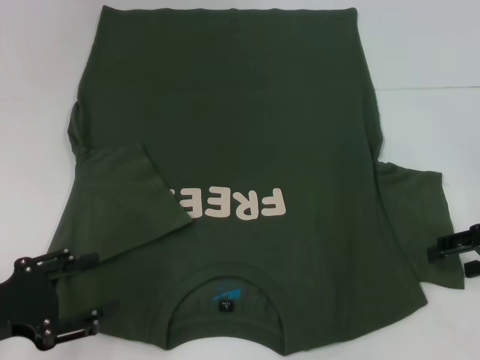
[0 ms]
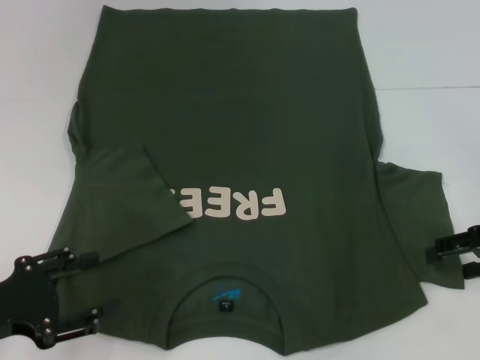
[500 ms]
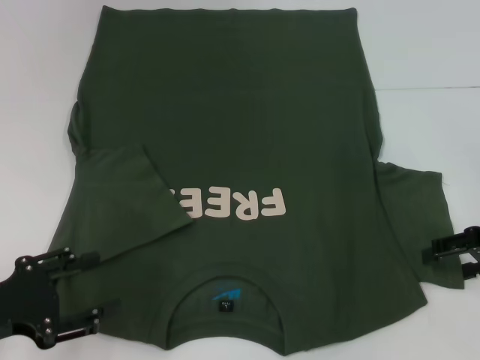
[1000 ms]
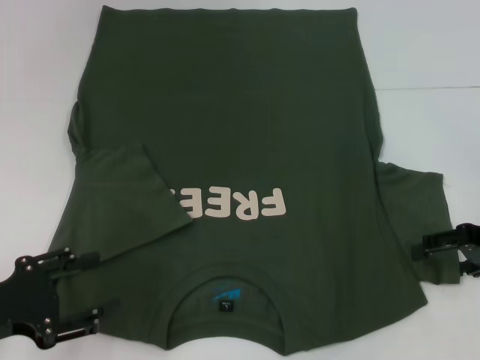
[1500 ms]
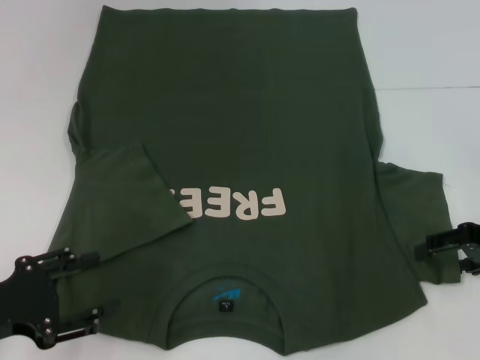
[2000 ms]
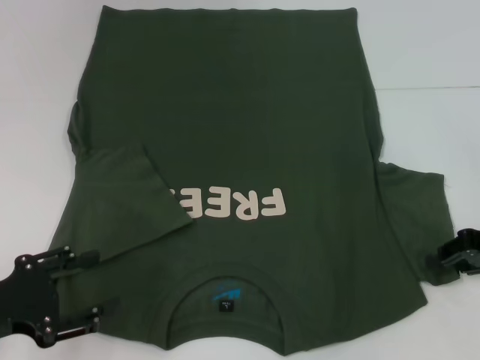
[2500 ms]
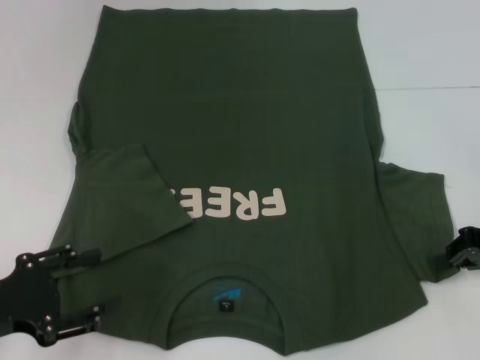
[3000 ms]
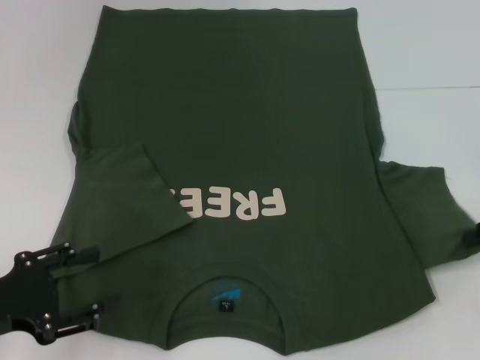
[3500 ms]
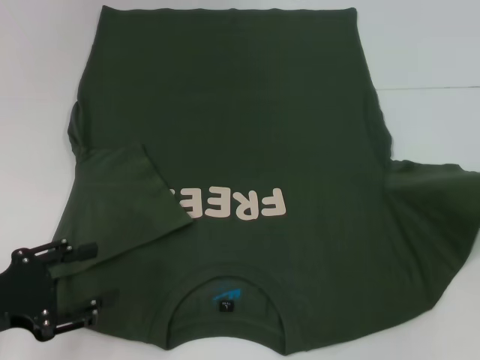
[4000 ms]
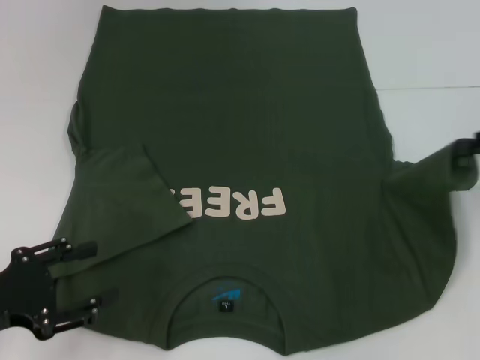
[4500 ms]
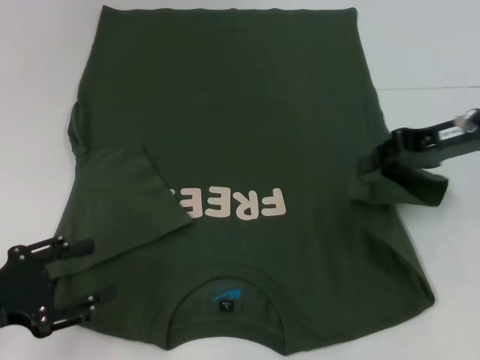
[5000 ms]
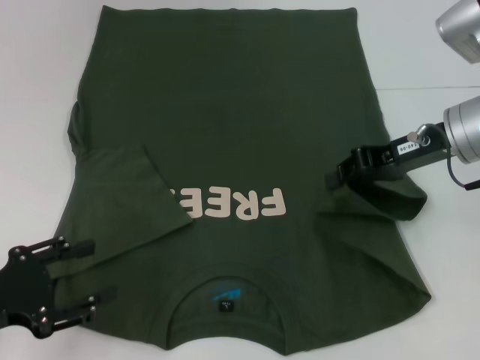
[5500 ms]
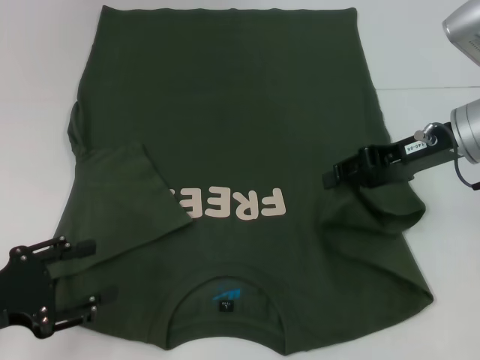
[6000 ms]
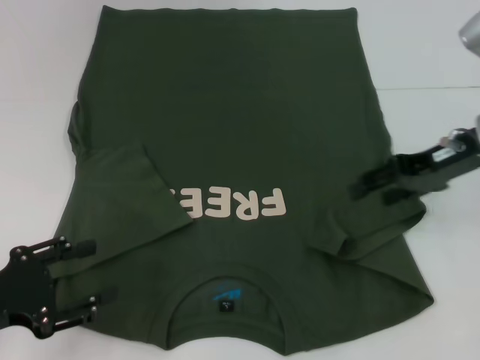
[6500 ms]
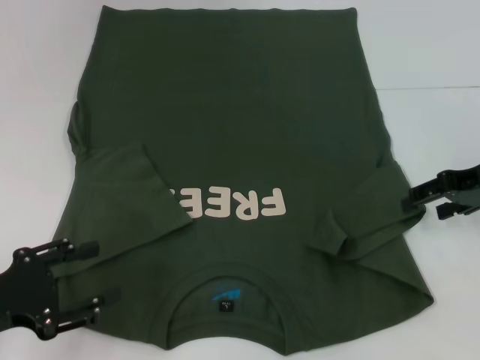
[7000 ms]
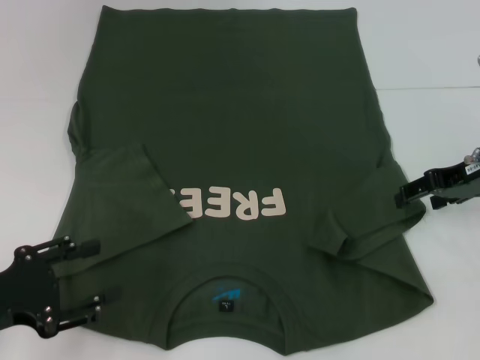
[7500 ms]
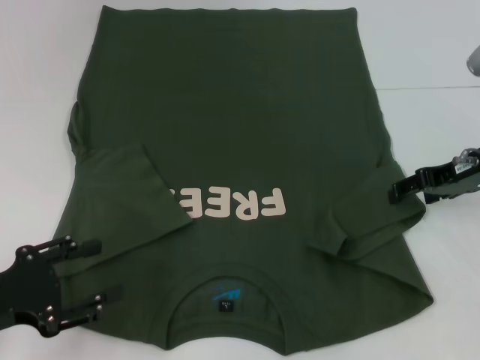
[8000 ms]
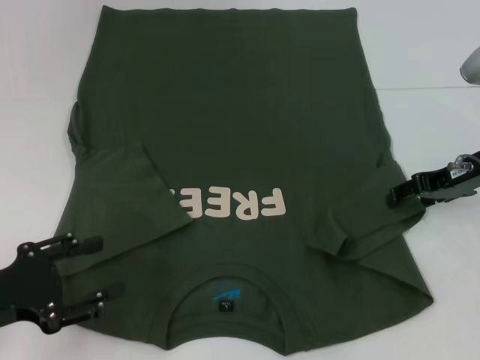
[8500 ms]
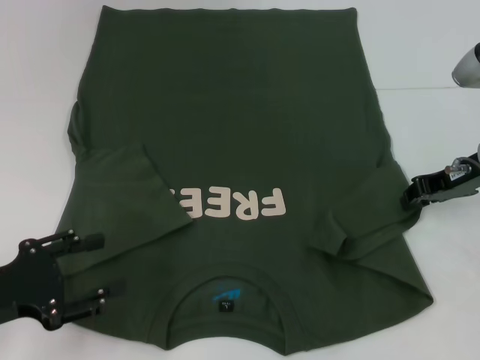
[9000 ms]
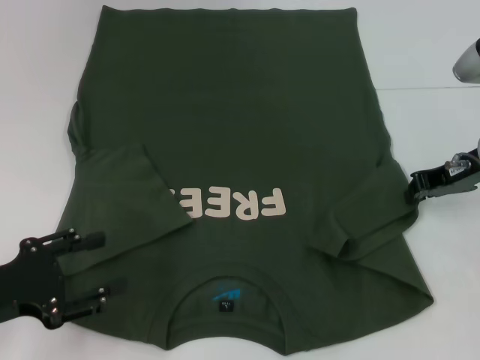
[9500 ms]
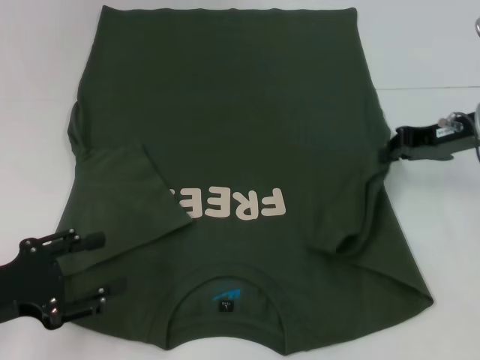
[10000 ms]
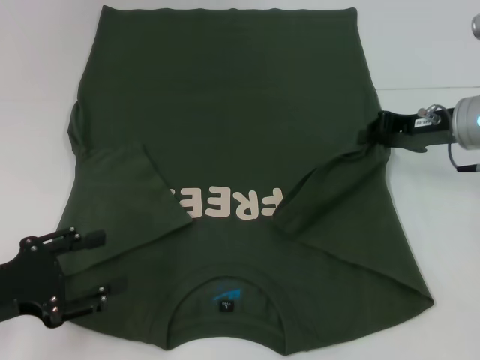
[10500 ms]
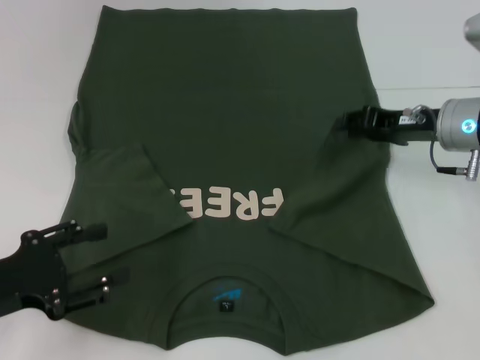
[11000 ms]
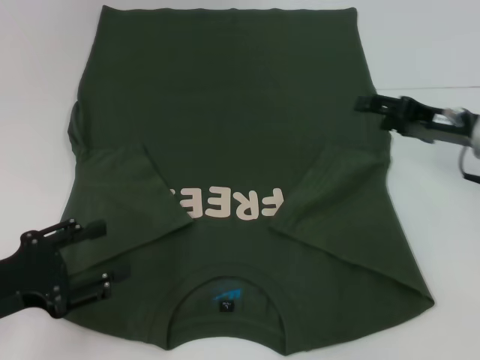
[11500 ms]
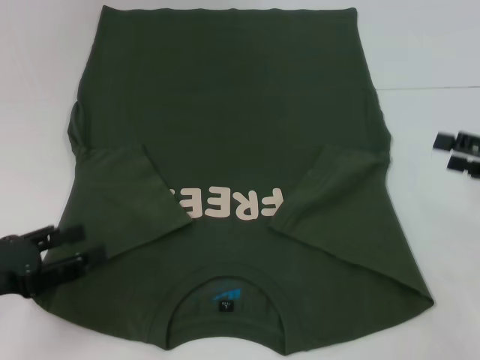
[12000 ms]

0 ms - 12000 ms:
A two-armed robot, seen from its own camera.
Step, 0 ms - 11000 ms: Fold the bottom right sleeve with your right hand.
0 ms - 2000 ms: The two grippers keep their place.
2000 ms - 4000 ms: The right gripper is displaced to the right and upward by roughly 10 cm, and closes.
4000 ms - 6000 ms: The right gripper goes approximately 15 cm to the left and forward.
6000 ms - 8000 ms: The right gripper moves roughly 5 cm, and opens up.
8000 ms - 10000 ms: The right gripper closes its fingers.
10000 ms - 12000 ms: The right gripper travels to the right and backward by roughly 15 cm, and opens up.

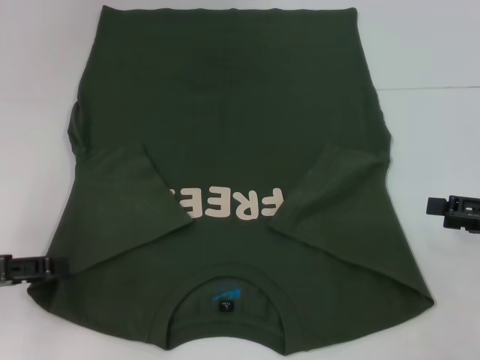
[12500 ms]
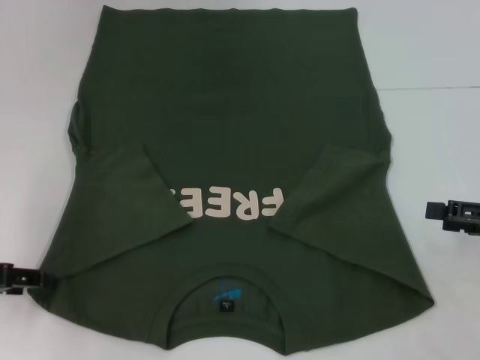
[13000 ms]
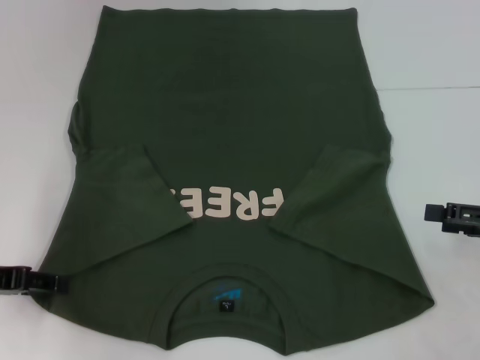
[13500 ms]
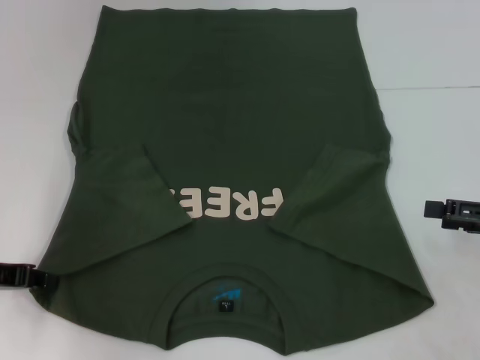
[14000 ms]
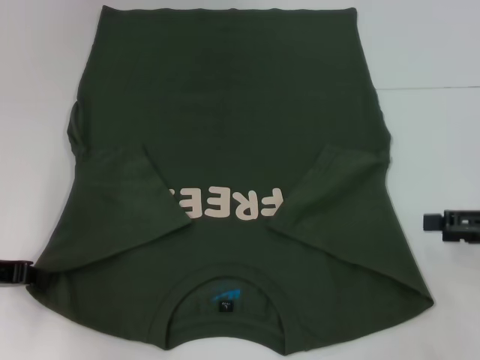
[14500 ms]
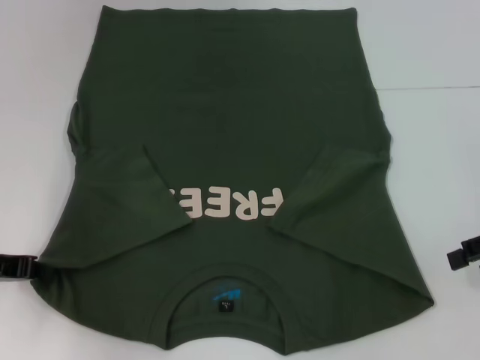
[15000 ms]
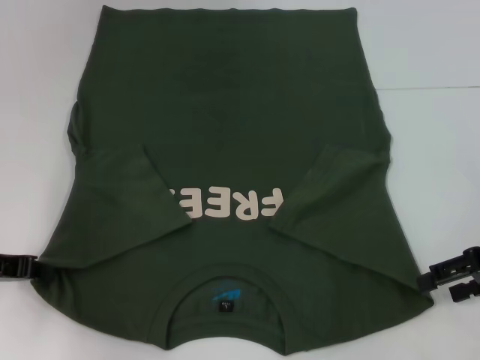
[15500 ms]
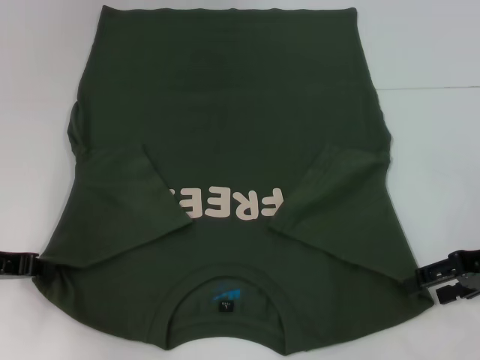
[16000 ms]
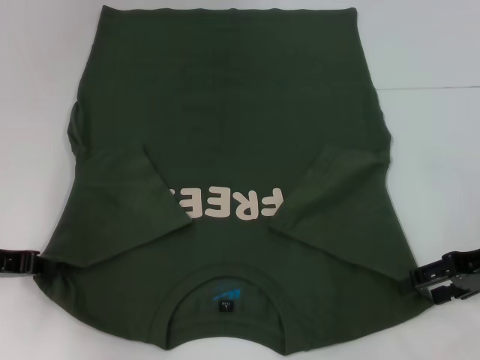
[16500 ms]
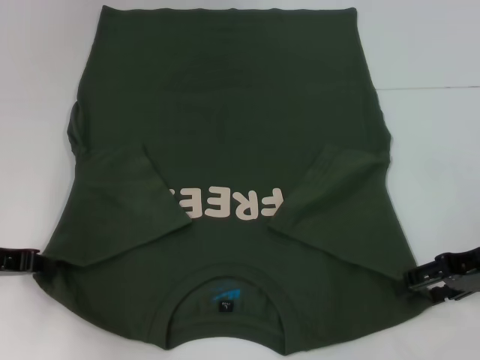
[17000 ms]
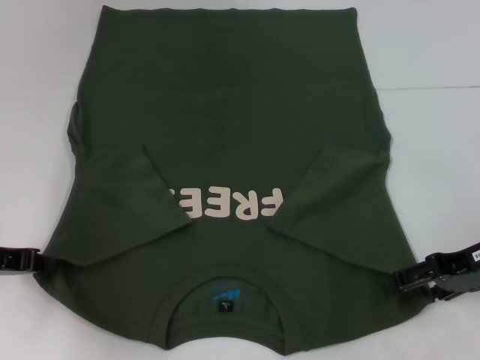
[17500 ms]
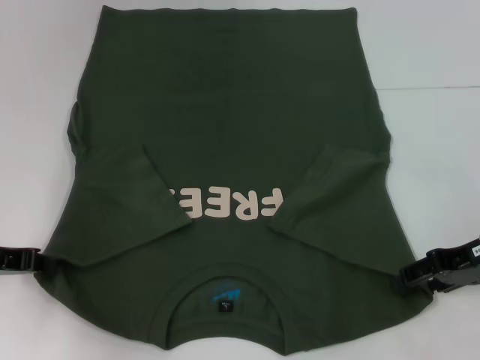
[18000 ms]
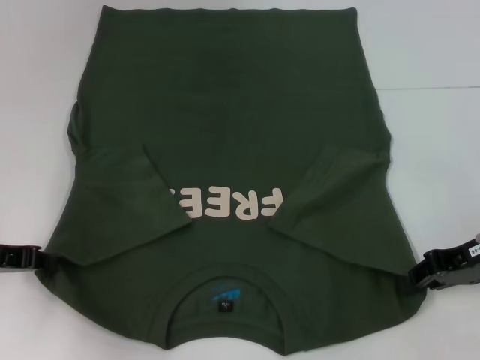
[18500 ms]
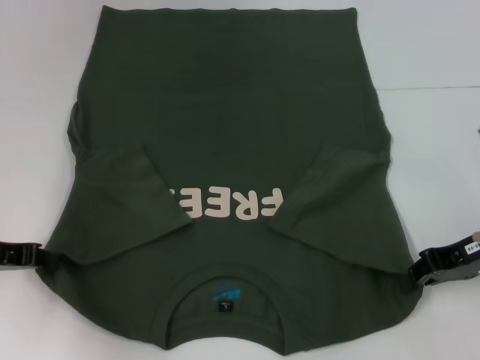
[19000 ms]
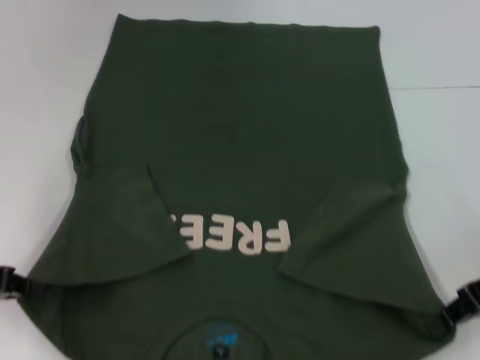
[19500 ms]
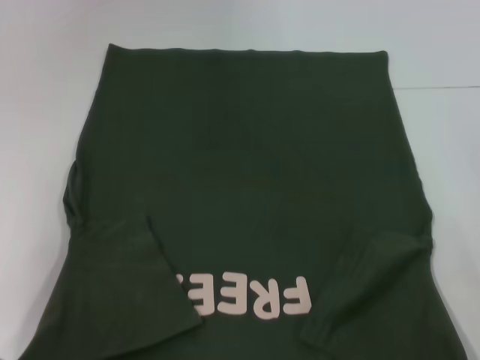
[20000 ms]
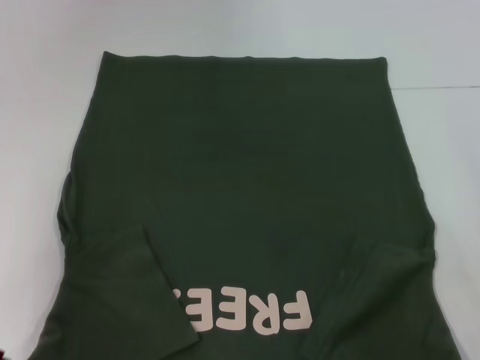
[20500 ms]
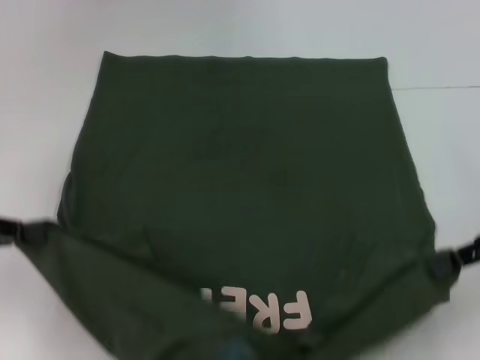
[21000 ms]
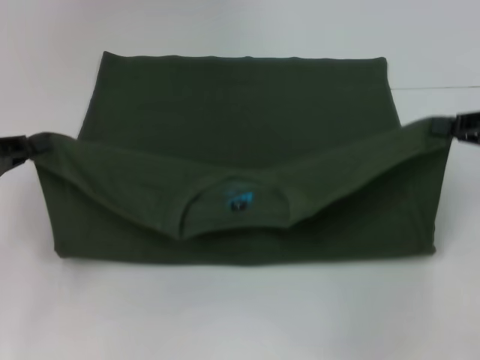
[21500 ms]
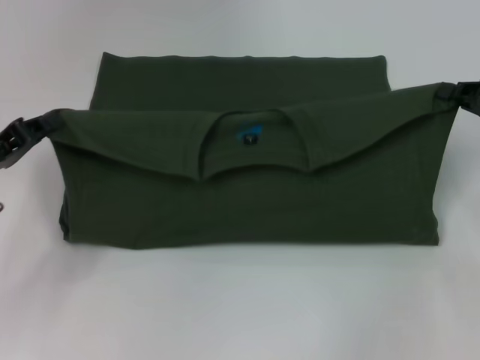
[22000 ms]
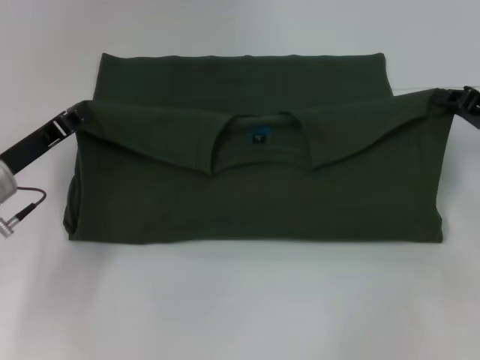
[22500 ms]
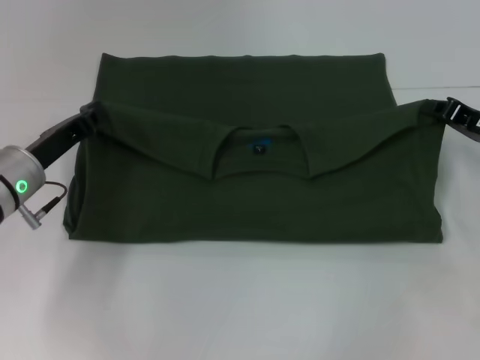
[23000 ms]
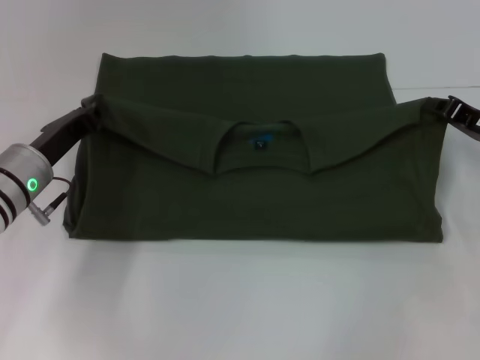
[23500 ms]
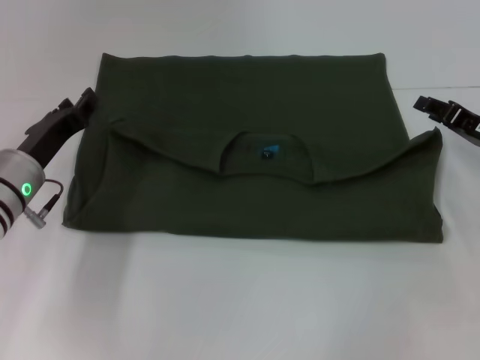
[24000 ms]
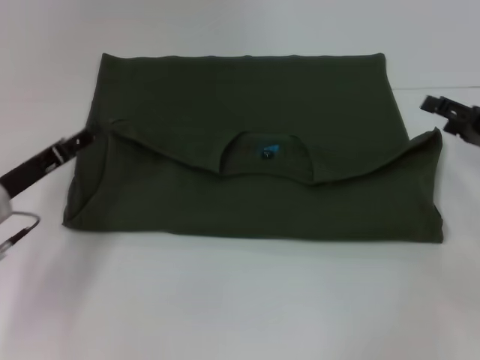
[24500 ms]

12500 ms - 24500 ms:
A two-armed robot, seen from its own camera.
Step, 12500 ms - 14000 ms: Grab the bottom left corner with your left hand.
Step, 14500 ms - 18500 ms: Grab the bottom right corner with your right hand.
Step, 19000 ms - 23500 ms: Fold the clothes with your left hand.
Step, 19000 ms - 23500 ms: Fold the clothes with your right hand.
12500 ms - 14500 ms: The left gripper closes.
14500 ms - 16500 ms: The right gripper shifts by approximately 5 cm.
16500 ms - 18500 ms: The right gripper closes its fingers.
18500 ms - 20500 ms: The left gripper heads backward, covering about 5 cm. The right gripper closes up.
20500 ms - 22500 ms: The left gripper is displaced forward and to the right by approximately 10 cm. The right gripper goes about 10 cm forward.
22500 ms - 24500 ms: The right gripper opens its fingers; the left gripper opens.

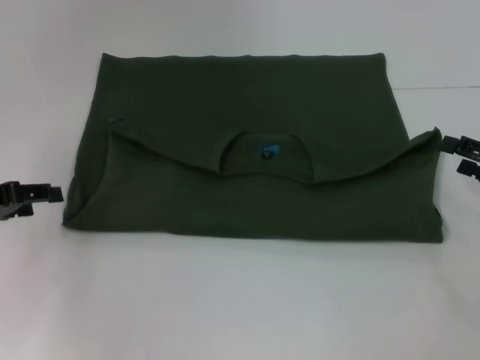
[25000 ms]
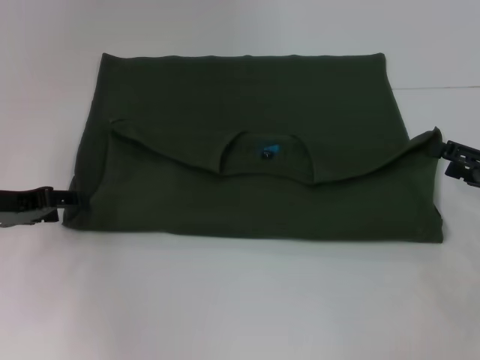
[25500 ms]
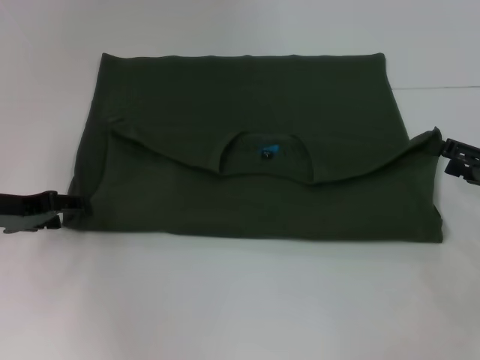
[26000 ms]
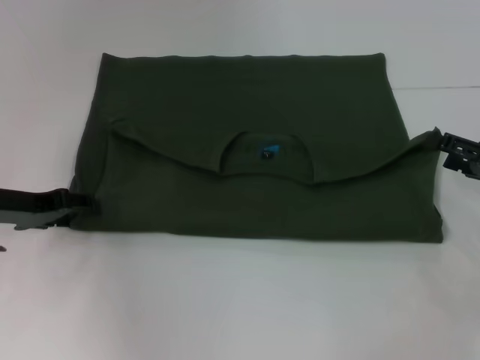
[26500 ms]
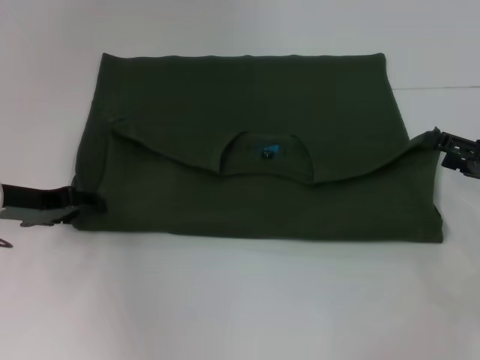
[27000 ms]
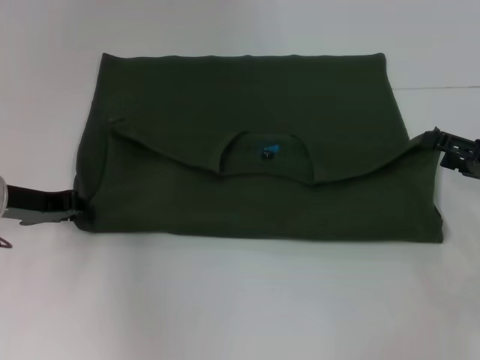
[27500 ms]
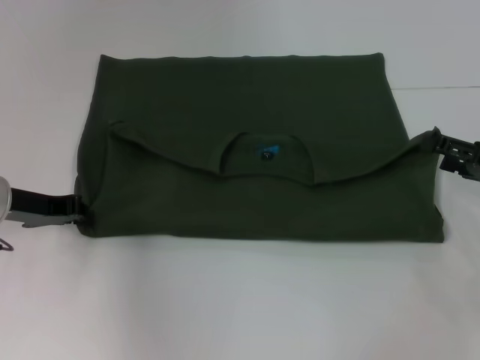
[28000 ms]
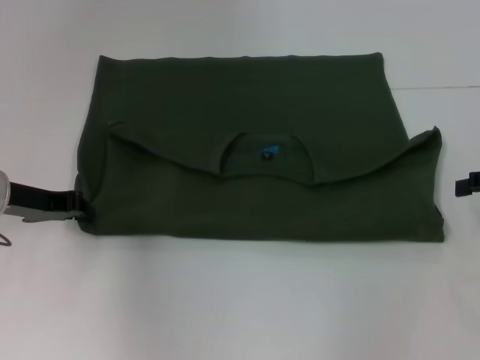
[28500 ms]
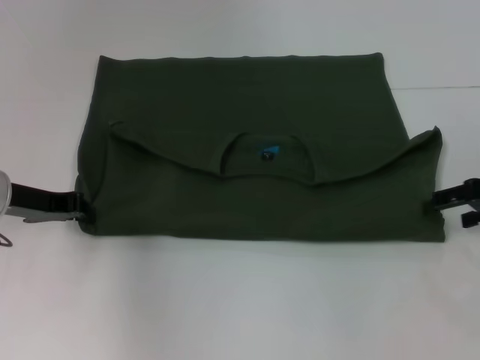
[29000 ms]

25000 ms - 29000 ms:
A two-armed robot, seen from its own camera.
25000 ms - 27000 ms: The left gripper shifts by some 5 cm.
27000 ms - 29000 ms: The right gripper moves some 5 cm; the left gripper closes up.
